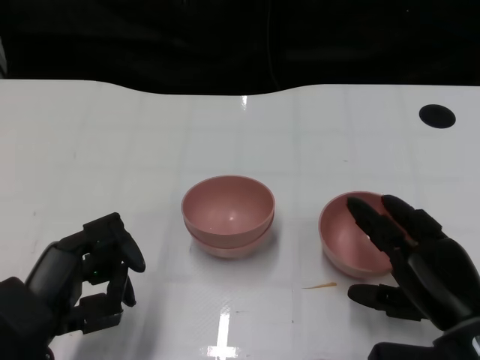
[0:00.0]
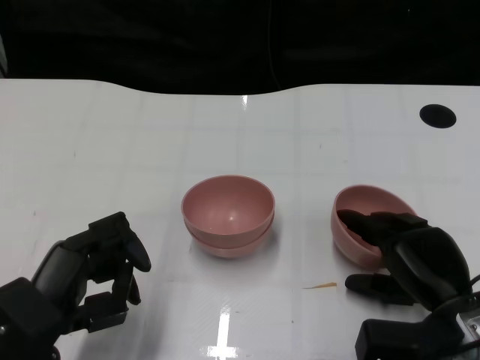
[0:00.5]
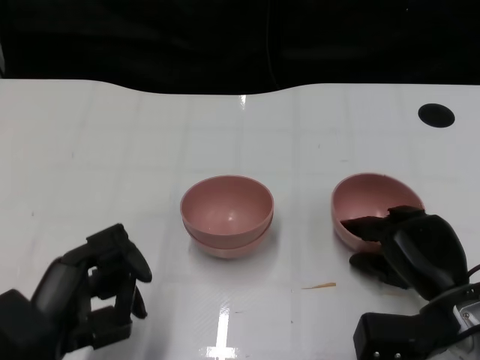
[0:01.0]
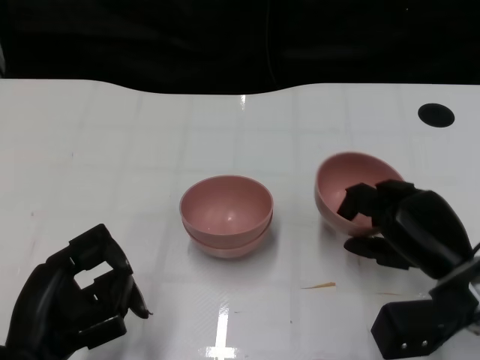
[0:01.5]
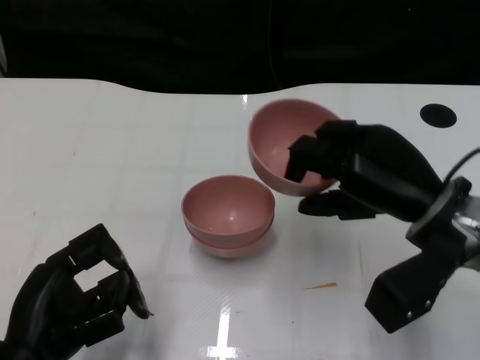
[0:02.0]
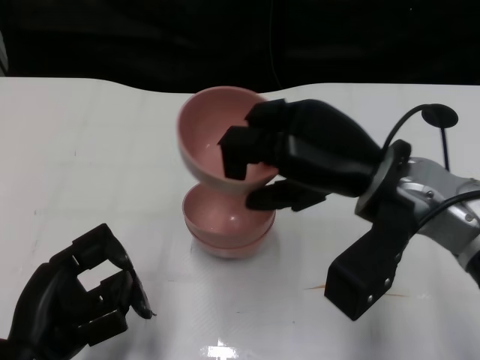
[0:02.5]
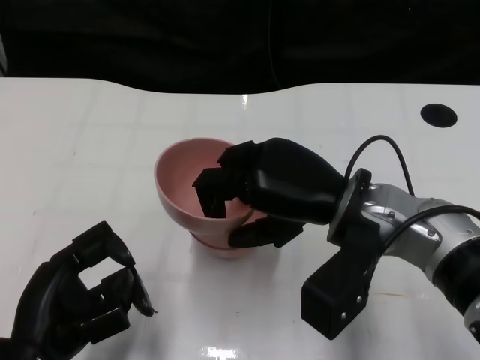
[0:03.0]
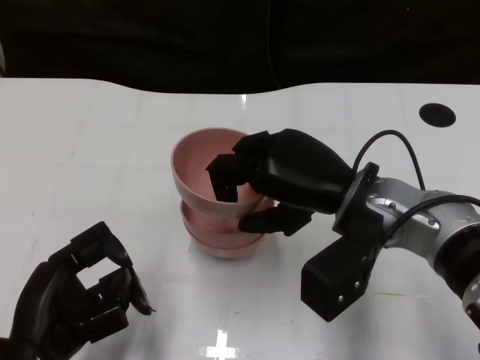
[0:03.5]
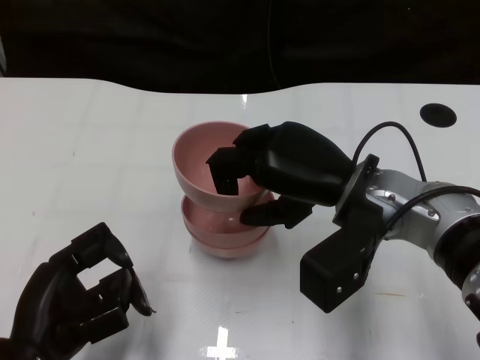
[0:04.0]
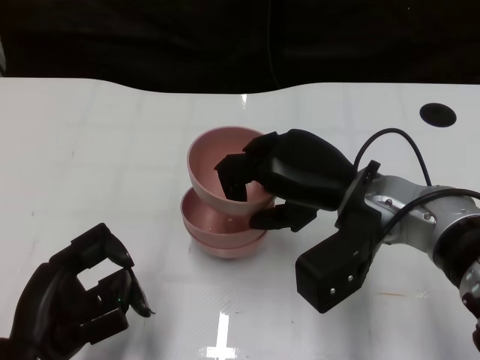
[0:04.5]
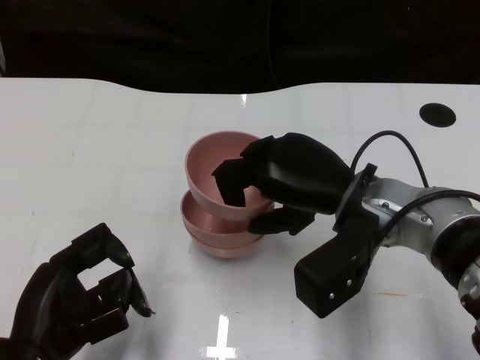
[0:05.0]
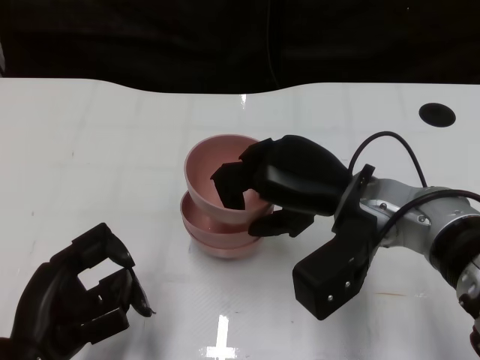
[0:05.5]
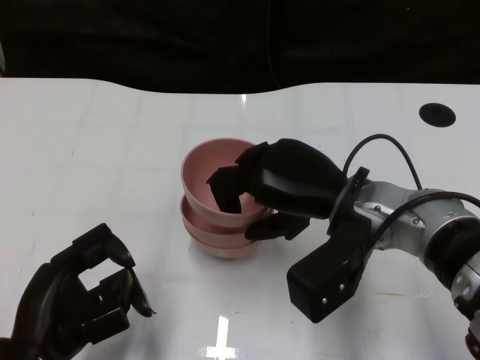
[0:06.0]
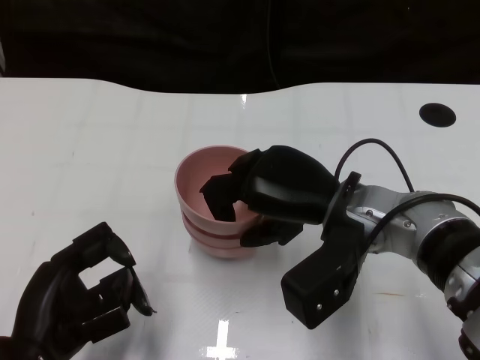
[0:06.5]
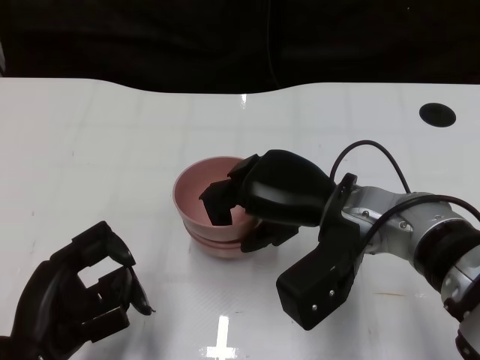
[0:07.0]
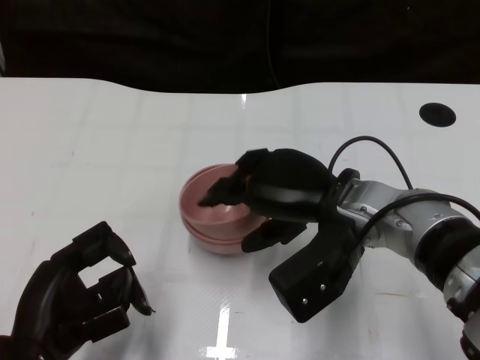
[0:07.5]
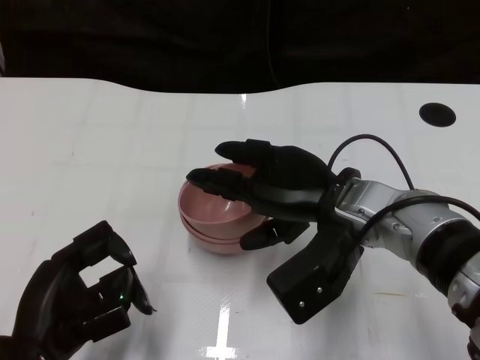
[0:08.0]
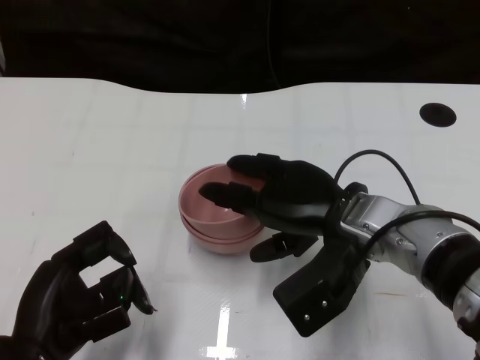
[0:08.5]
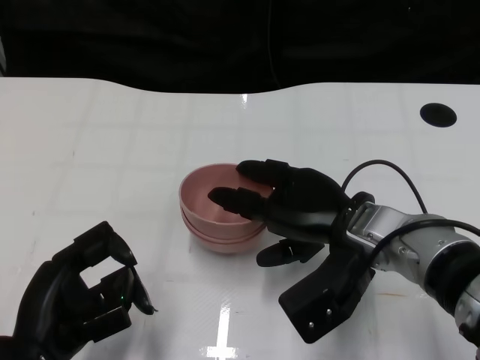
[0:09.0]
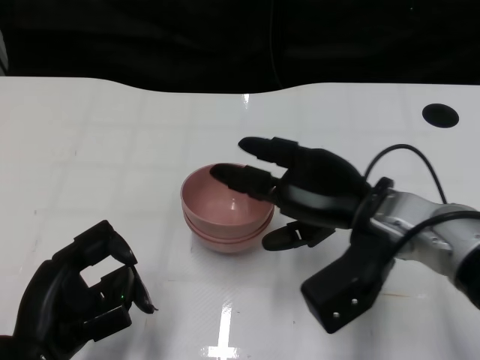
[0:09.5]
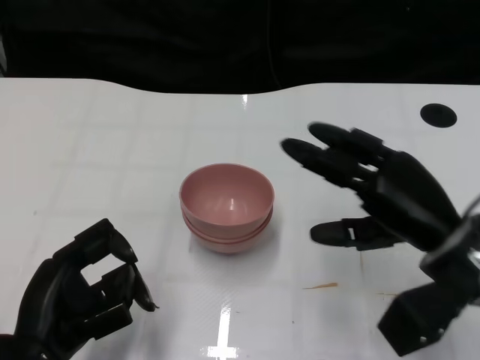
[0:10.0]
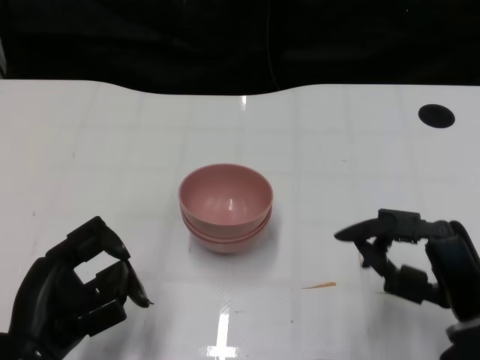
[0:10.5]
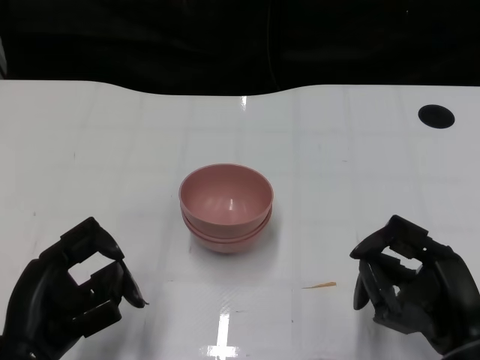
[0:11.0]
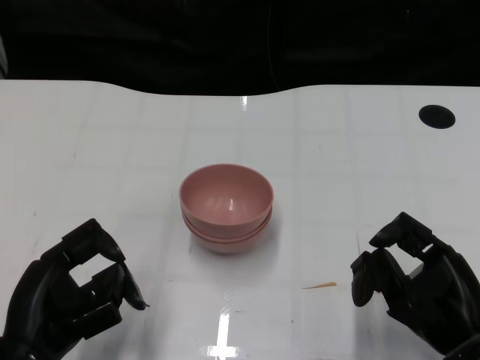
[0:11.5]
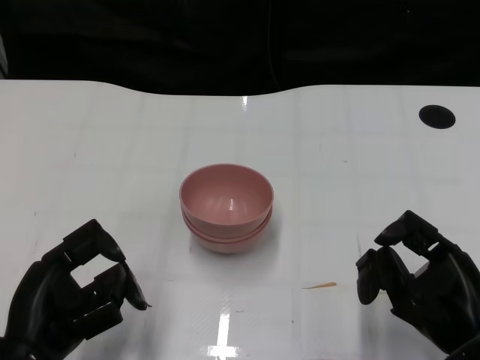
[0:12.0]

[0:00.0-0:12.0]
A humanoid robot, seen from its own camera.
Task of the whole recording: Pick up the bowl on one side of the table and place it on top of the middle bowl, then pick up the bowl on the other side of the table and place it on top of the middle bowls.
Step, 0:01.5 to 0:09.0: Place the bowl on the right onto the bowl in the middle with right gripper.
0:00.0 to 0:02.0: The right hand moves upward and forward, about 10 cm.
0:02.0 to 0:04.0: The right hand heads to the left, covering some 5 cm.
0:04.0 to 0:06.0: The hands stay close to where they were, moving slightly.
0:06.0 to 0:08.0: There are only small adjustments of the hands.
0:08.0 to 0:10.0: The right hand travels to the right by some 10 cm.
0:10.0 to 0:12.0: The right hand heads backward, covering about 10 cm.

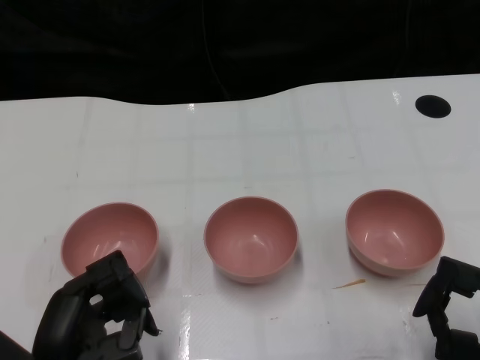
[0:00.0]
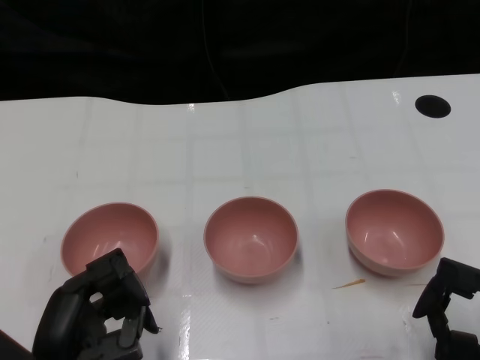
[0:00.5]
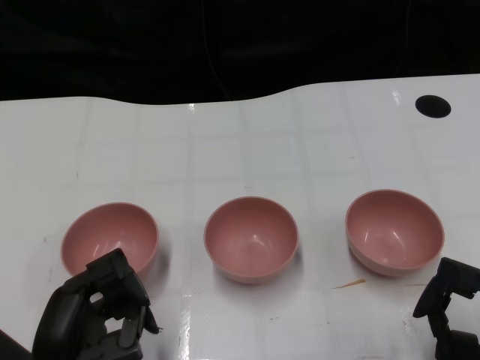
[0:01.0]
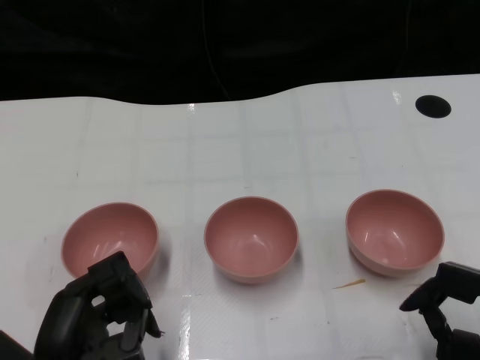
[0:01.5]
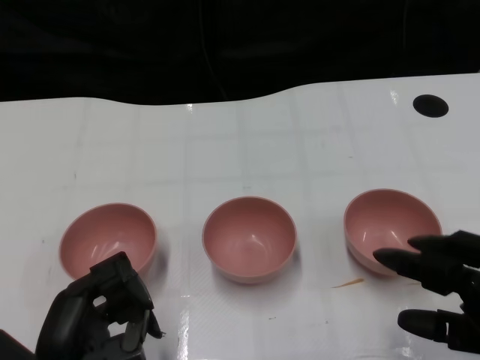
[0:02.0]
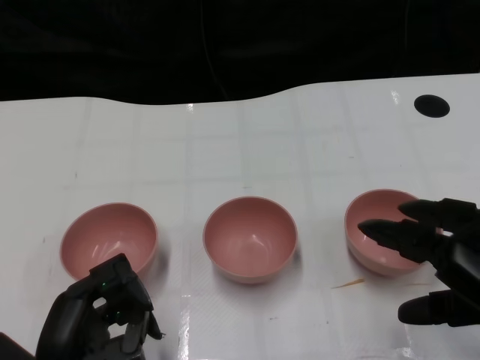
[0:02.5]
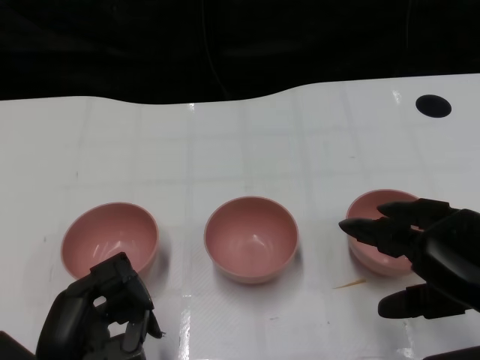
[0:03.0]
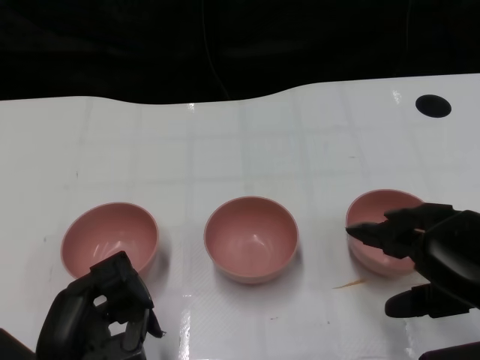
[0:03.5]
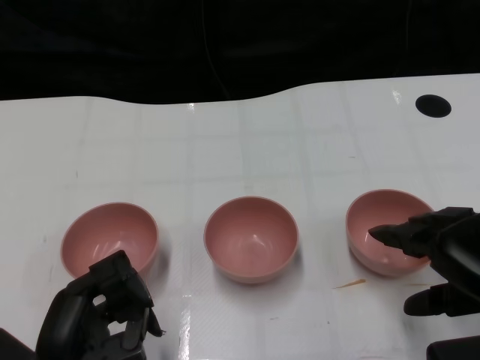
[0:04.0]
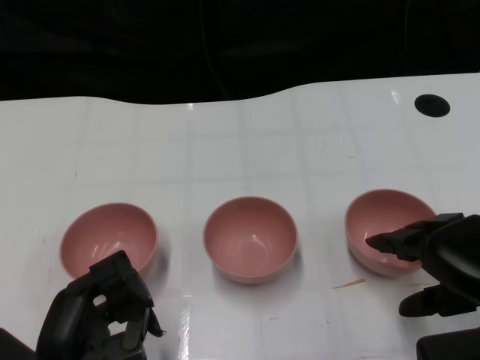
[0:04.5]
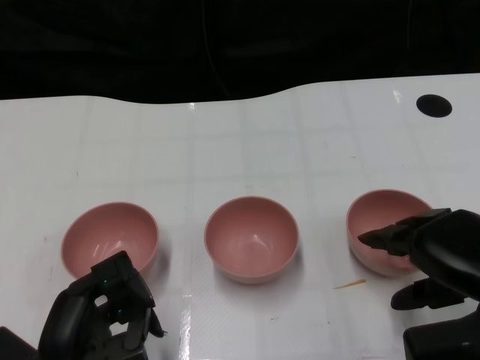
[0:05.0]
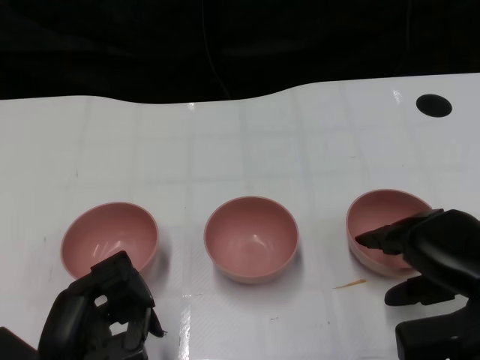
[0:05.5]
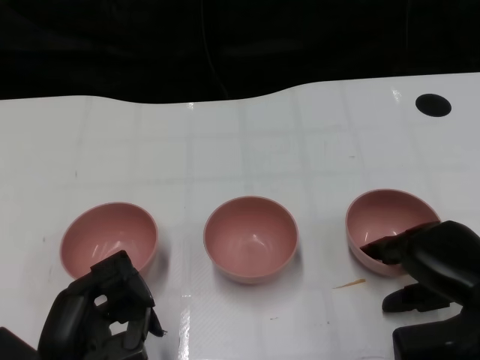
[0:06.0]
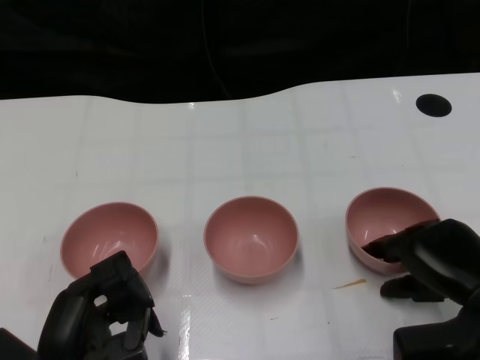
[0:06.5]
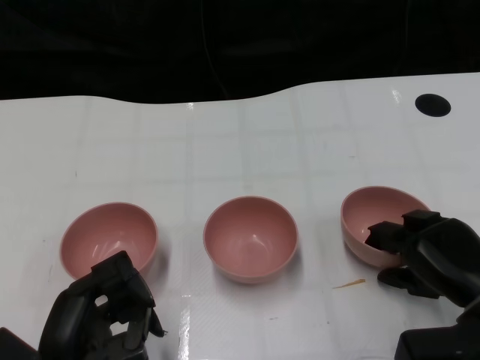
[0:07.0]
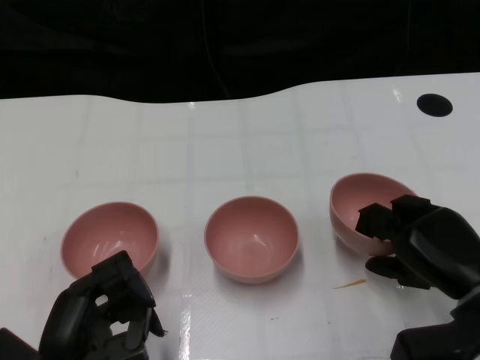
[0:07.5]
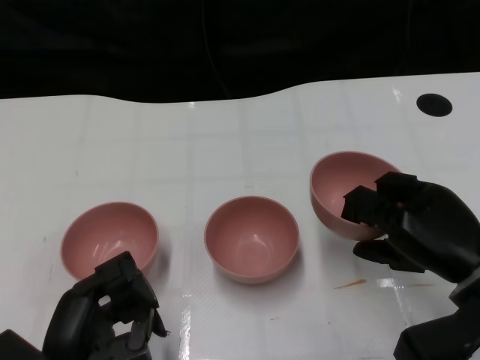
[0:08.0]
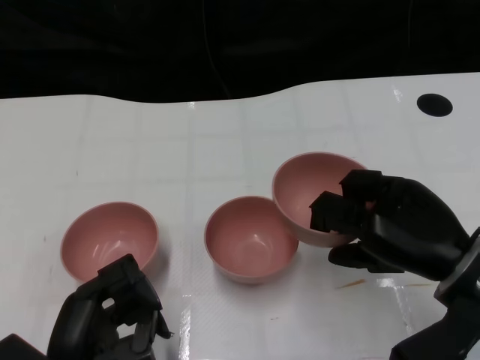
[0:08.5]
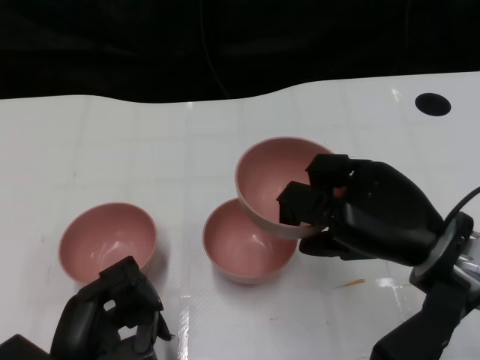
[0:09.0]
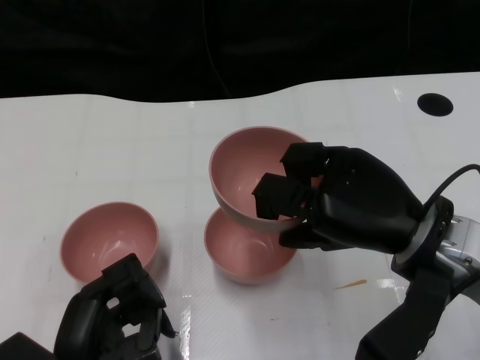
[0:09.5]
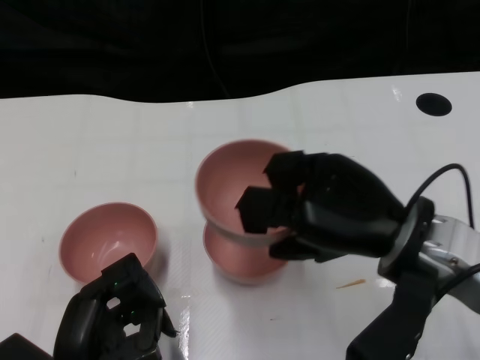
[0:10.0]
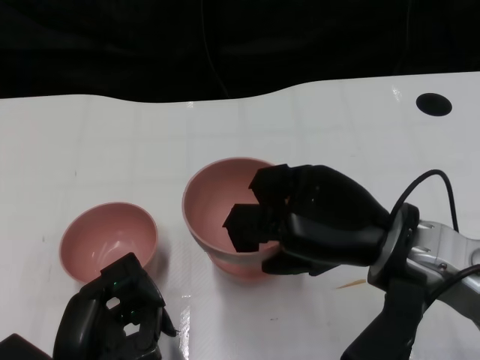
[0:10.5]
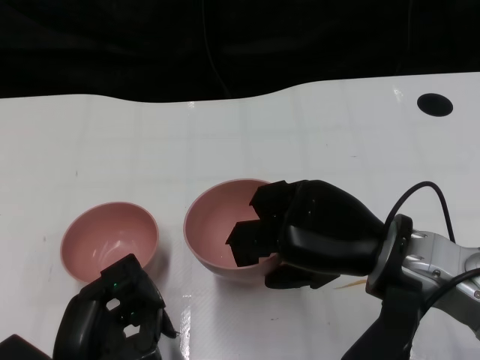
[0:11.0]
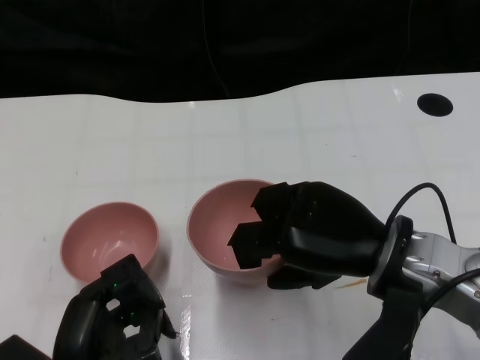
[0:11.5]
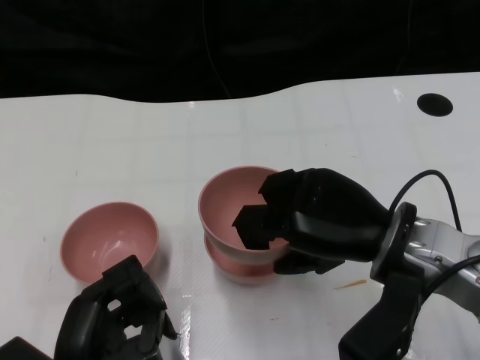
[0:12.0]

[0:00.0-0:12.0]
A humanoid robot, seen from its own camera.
Task of the whole recording: Pick up the bowl on one side of the table and place it on top of the middle bowl, then pick up the bowl on the other side of the table and place it on top of the middle bowls.
Step, 0:01.5 to 0:07.0: Grasp the bowl on the right with the right gripper.
0:02.0 to 0:04.0: The right hand changes place by approximately 5 cm.
0:04.0 to 0:06.0: The right hand heads downward, covering approximately 5 cm.
0:08.0 to 0:10.0: The right hand is displaced to the left and upward by roughly 10 cm.
0:10.0 to 0:12.0: The hands move only a little.

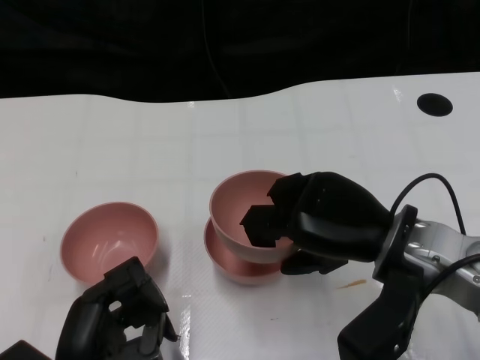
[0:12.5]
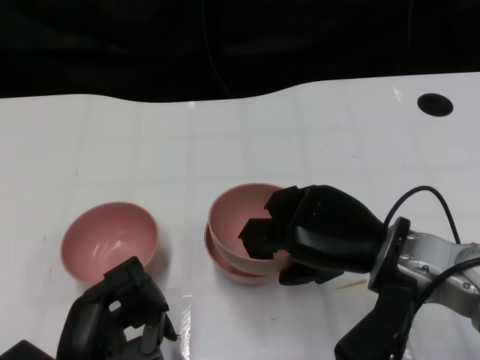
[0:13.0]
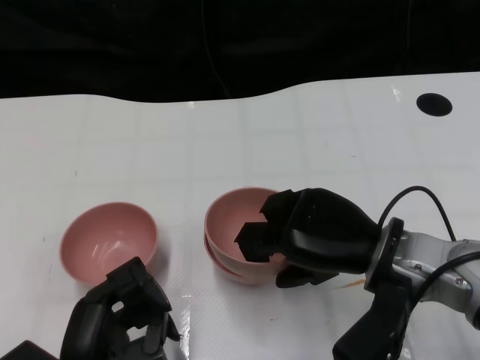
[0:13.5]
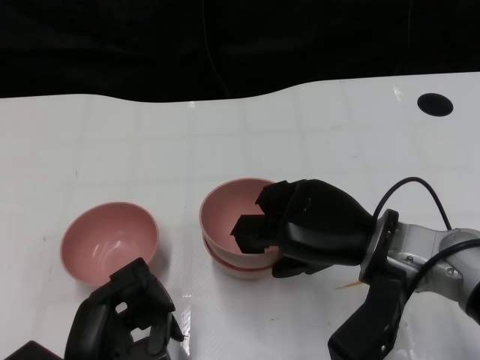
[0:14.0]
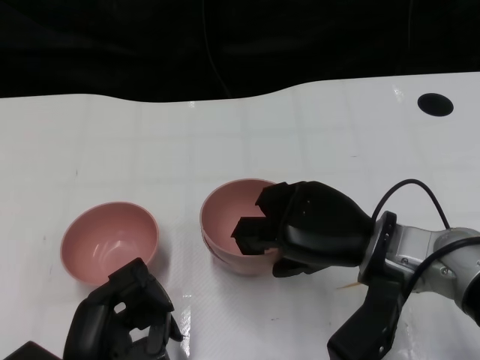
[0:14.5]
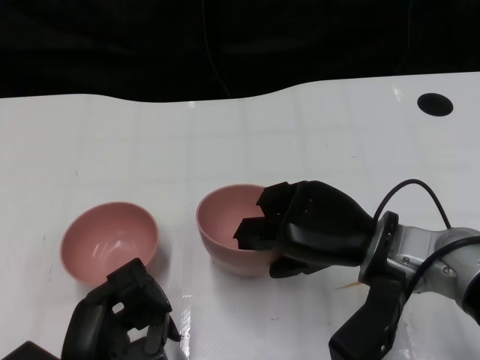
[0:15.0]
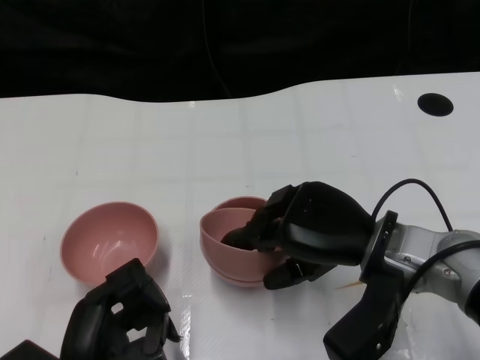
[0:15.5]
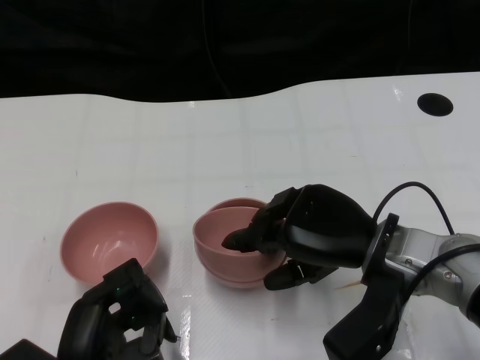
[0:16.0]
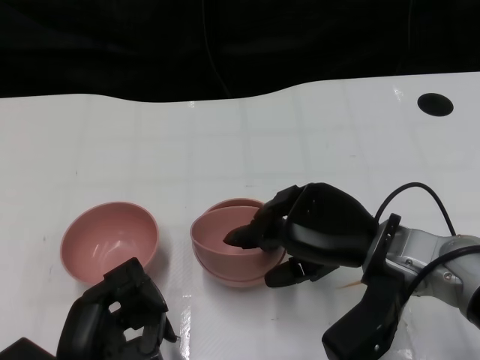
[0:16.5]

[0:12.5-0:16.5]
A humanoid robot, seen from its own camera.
Task of the whole recording: Pick up the bowl on one side of the table and place it on top of the middle bowl, then pick up the bowl on the other side of the table and place it on top of the middle bowls.
0:12.5 to 0:16.5: The hands make only small movements.
